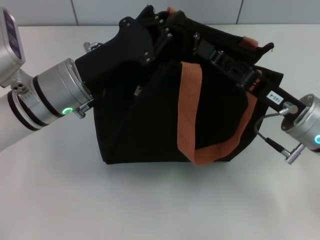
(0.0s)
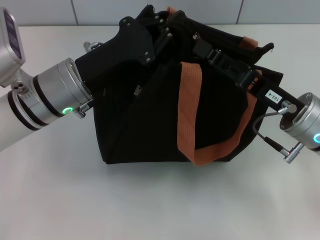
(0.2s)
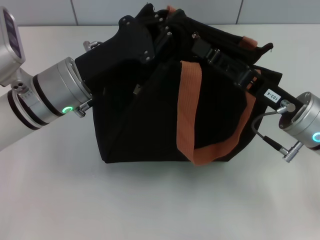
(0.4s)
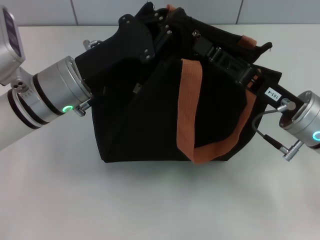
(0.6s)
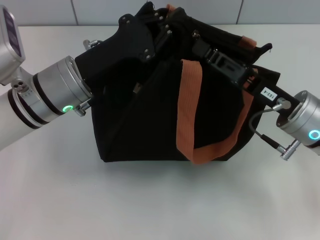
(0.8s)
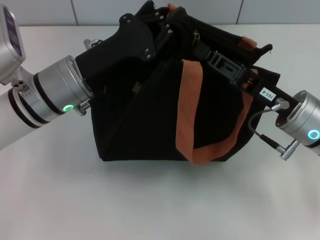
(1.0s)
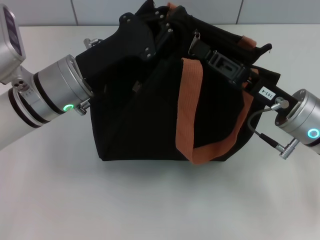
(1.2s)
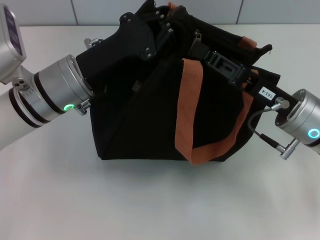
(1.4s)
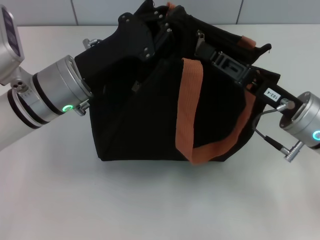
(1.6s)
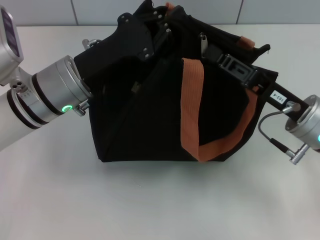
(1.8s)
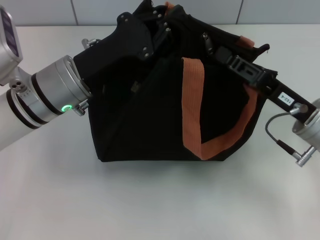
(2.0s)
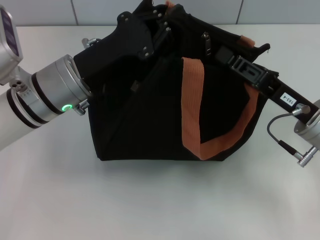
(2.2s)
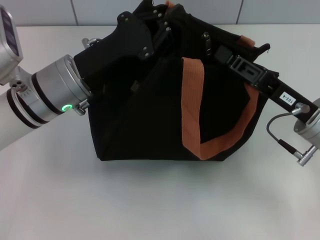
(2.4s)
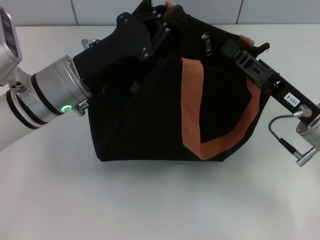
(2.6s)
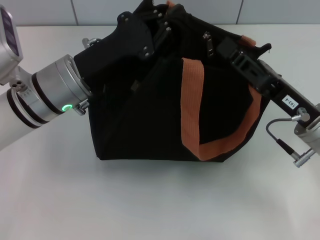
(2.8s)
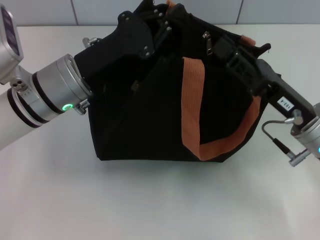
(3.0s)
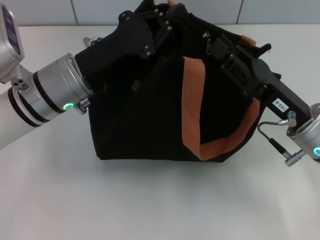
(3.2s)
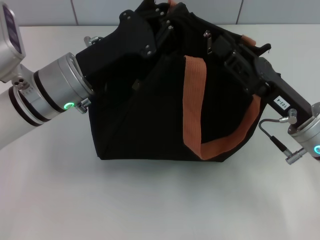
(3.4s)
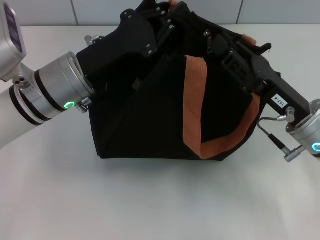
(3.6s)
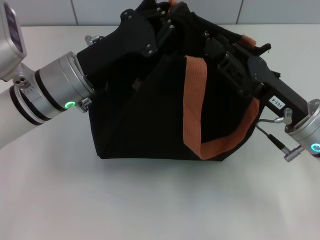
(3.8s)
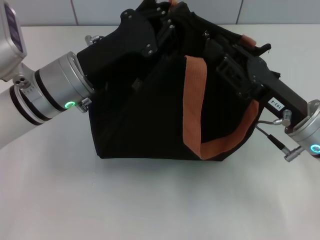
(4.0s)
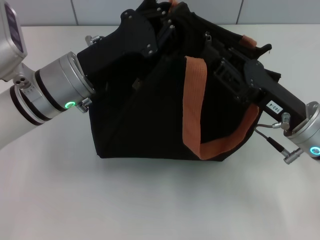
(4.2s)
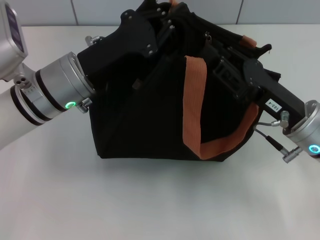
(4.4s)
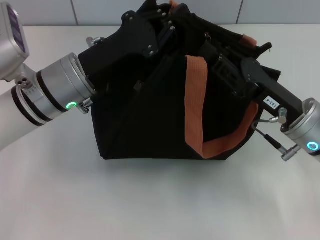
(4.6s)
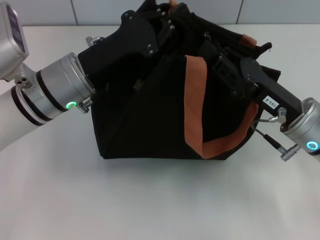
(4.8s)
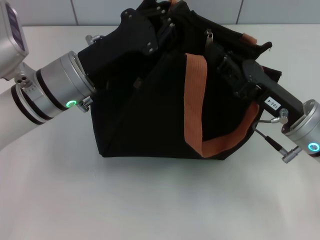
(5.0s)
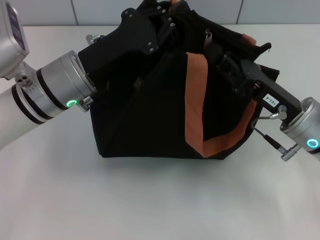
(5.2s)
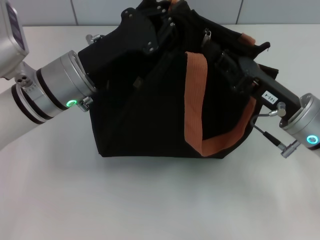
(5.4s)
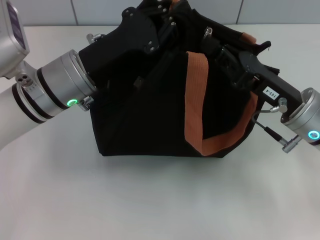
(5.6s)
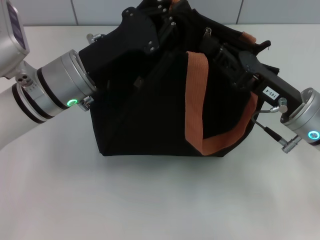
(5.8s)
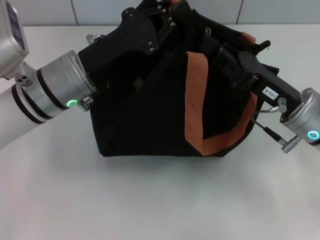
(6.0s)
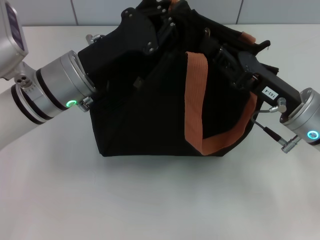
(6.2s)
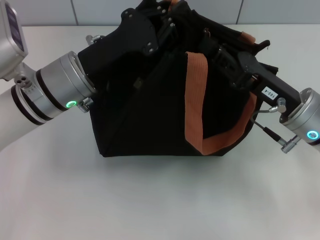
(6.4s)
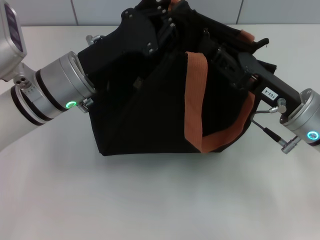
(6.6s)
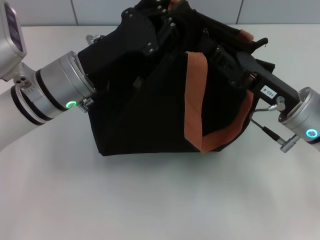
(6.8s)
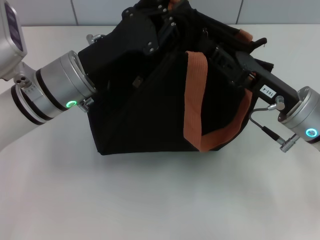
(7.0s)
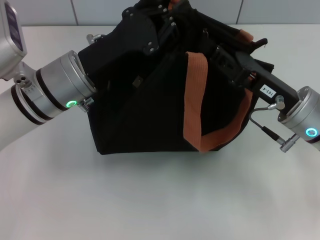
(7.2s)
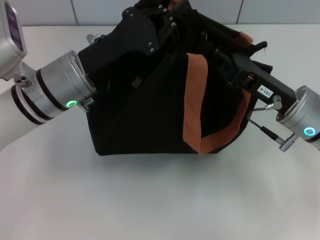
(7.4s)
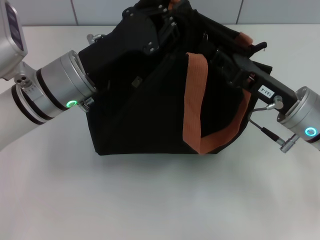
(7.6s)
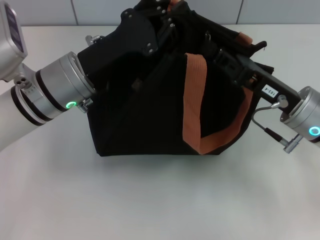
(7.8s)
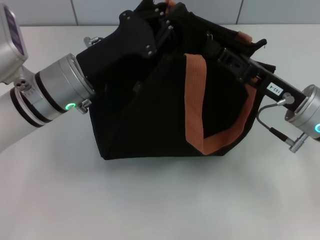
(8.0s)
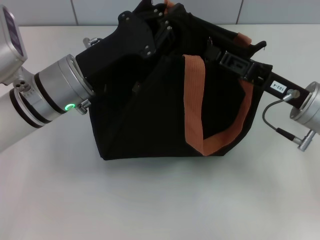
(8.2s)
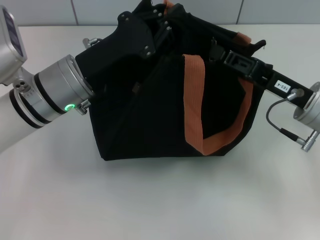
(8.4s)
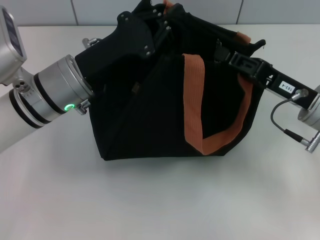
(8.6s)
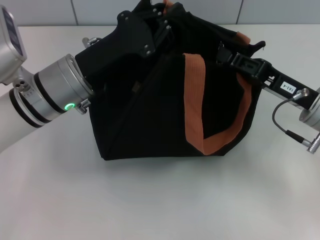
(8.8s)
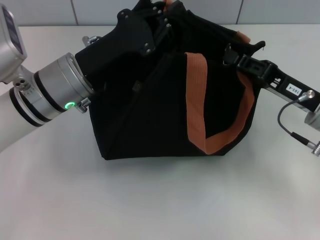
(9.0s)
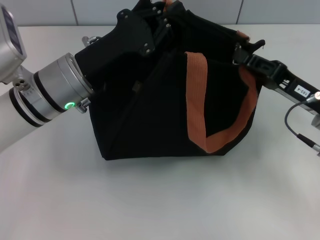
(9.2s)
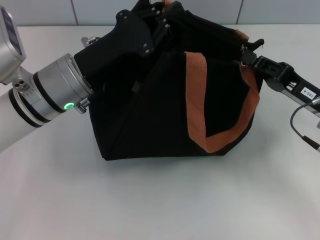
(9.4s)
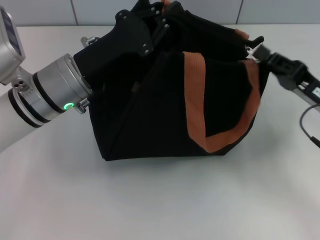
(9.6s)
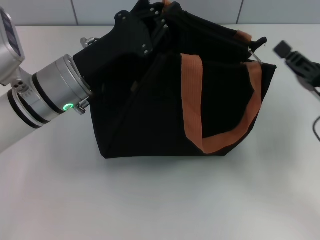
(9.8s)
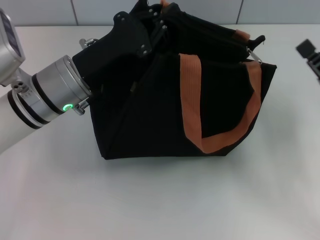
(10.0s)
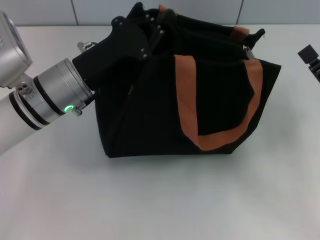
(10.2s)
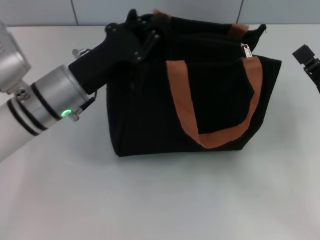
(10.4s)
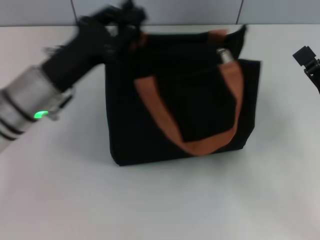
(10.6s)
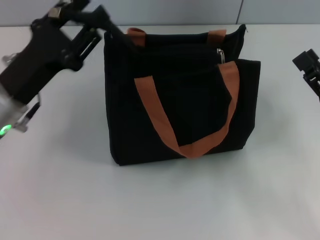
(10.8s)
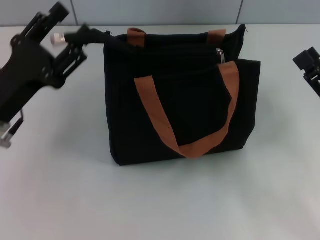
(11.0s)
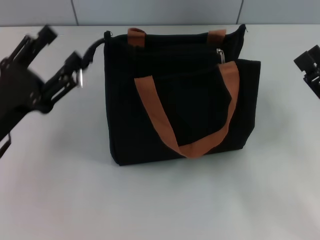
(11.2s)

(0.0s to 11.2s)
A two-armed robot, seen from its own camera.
Step, 0.0s - 10.0s: Pull up the zipper with your right hand.
Step, 10.2s - 11.0s: Grab the zipper with your left hand.
0.0s - 1.6s: The right gripper closes.
1.6s - 3.2s: The right gripper opens.
3.2s - 4.8s: There are only small adjustments of the grippers.
4.8s - 6.4s: Both grippers stay about where they are.
6.4s - 8.0s: The grippers move only a little.
8.0s - 9.6s: The right gripper heads to the right, covering roughly 5 cm.
9.6s - 11.2s: The right gripper shifts roughly 5 cm backward, and opens; the left gripper shifts approximately 15 cm to the left and backward, and opens up.

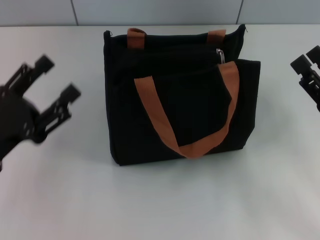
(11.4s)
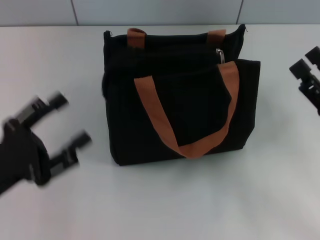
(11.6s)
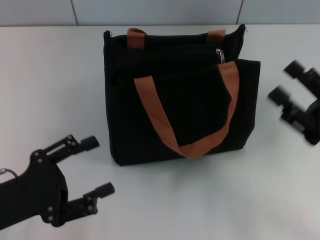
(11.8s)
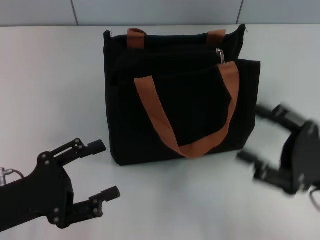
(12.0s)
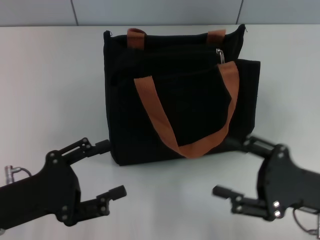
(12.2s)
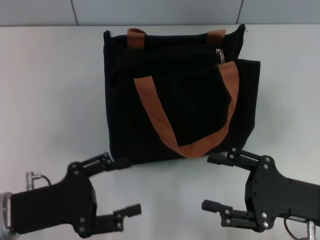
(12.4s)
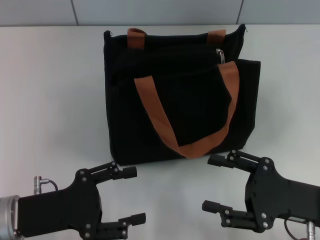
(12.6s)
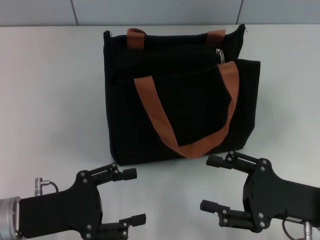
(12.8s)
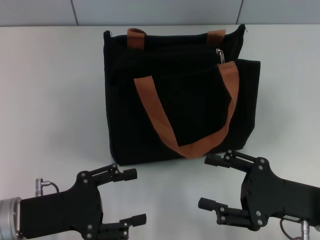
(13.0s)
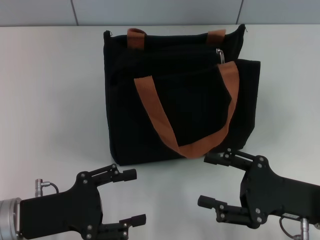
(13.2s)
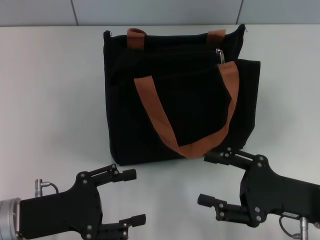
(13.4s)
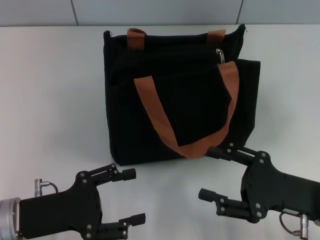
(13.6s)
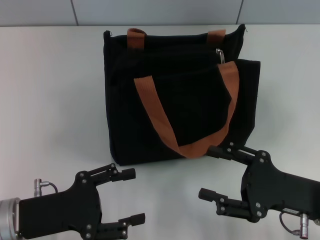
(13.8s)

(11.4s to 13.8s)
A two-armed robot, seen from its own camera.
11.4s - 12.6s: The right gripper shifts by roughly 5 cm.
12.6s - 13.8s: Both grippers stay about where they are.

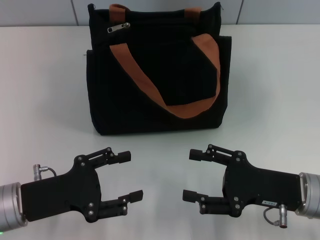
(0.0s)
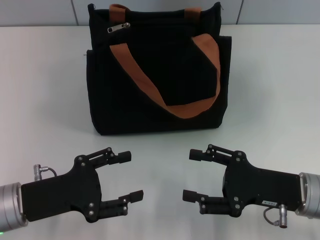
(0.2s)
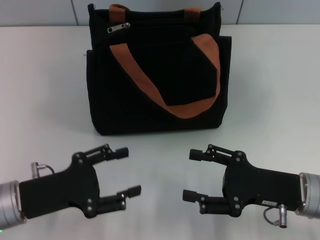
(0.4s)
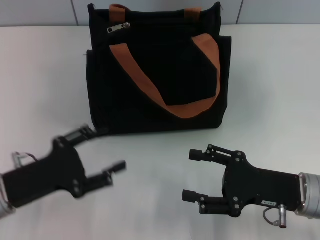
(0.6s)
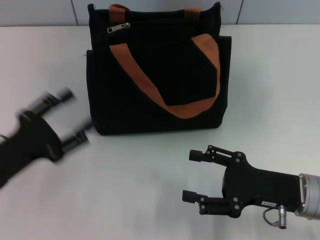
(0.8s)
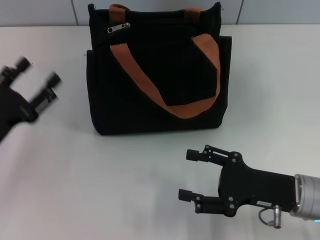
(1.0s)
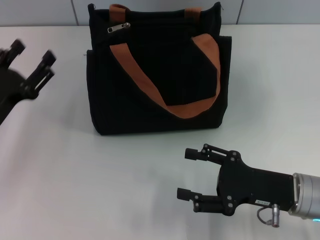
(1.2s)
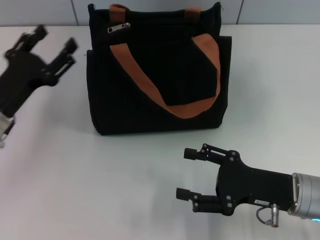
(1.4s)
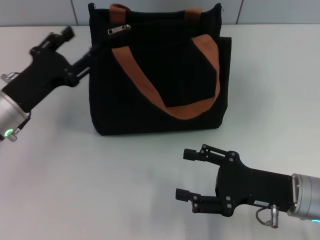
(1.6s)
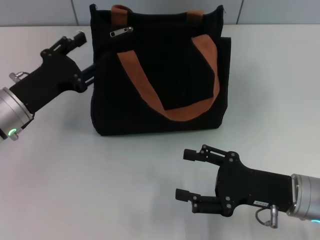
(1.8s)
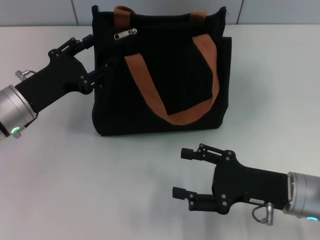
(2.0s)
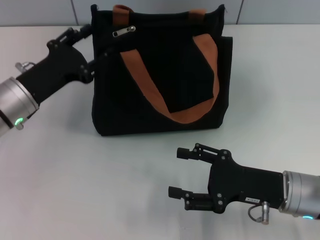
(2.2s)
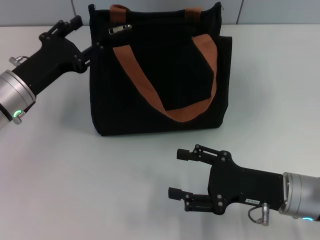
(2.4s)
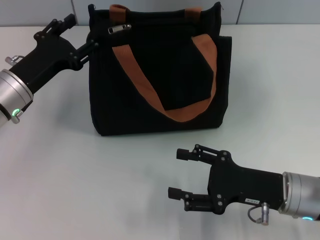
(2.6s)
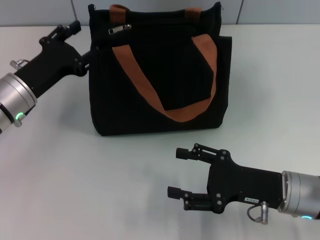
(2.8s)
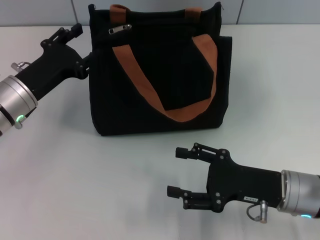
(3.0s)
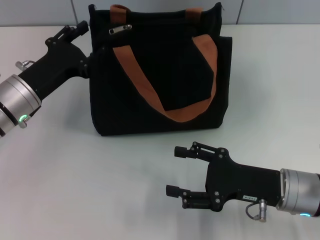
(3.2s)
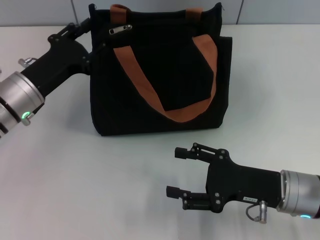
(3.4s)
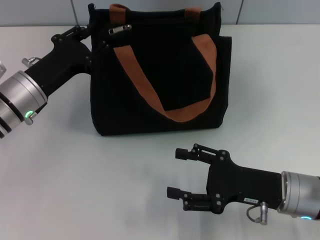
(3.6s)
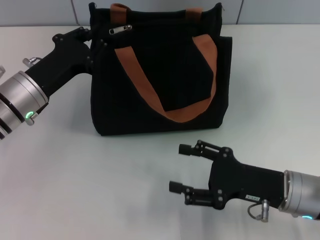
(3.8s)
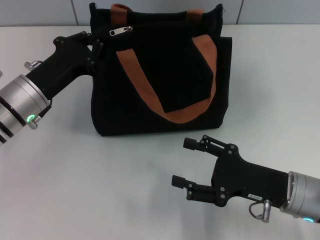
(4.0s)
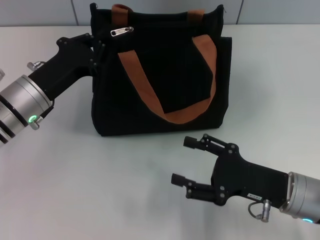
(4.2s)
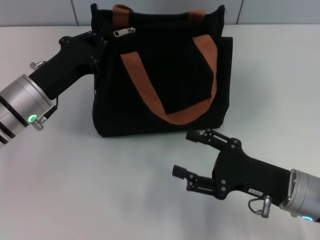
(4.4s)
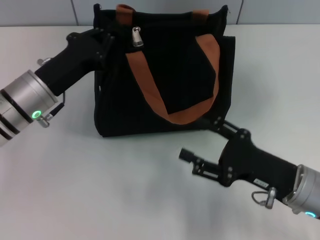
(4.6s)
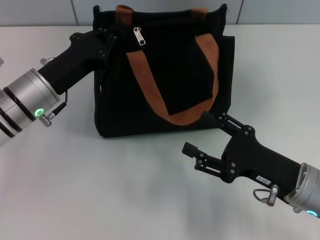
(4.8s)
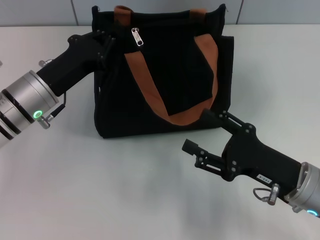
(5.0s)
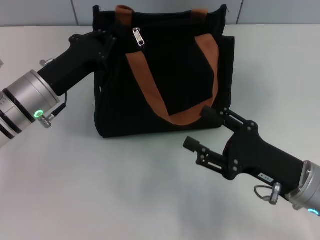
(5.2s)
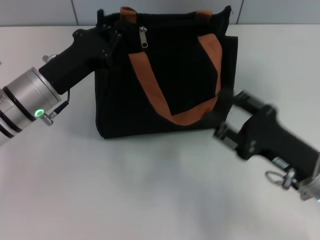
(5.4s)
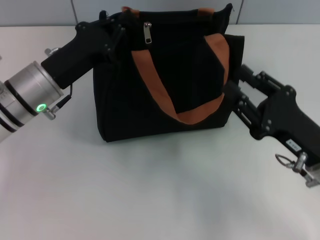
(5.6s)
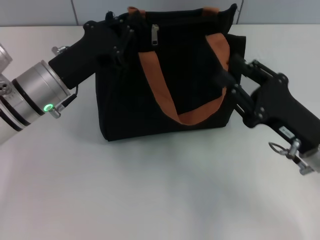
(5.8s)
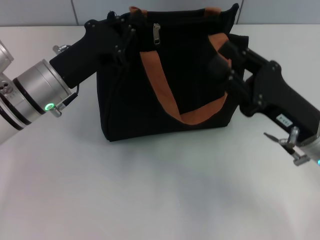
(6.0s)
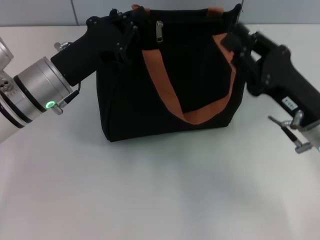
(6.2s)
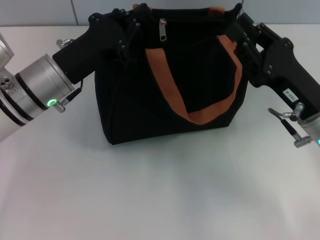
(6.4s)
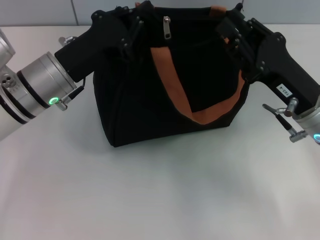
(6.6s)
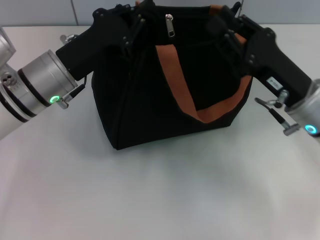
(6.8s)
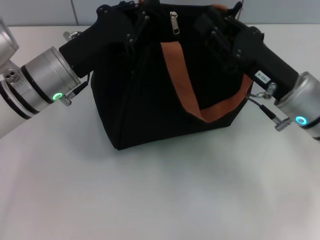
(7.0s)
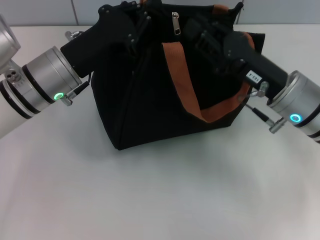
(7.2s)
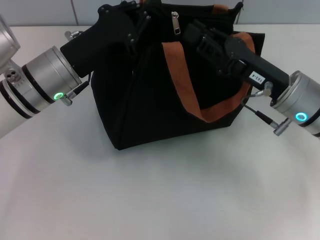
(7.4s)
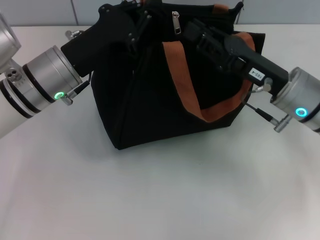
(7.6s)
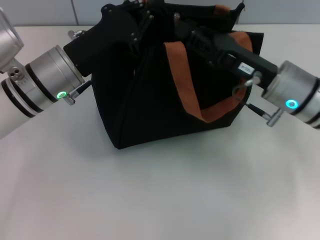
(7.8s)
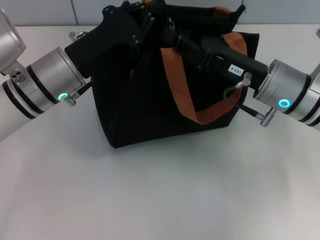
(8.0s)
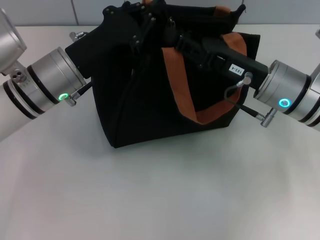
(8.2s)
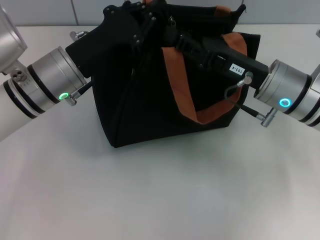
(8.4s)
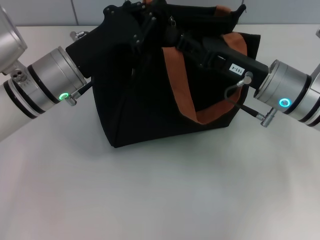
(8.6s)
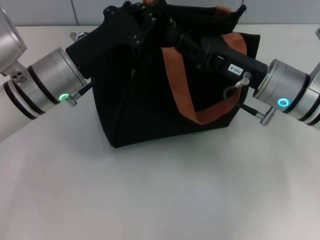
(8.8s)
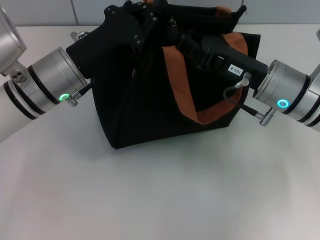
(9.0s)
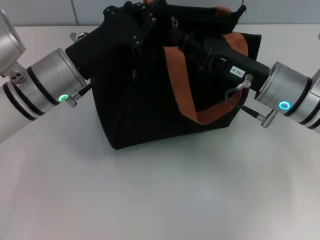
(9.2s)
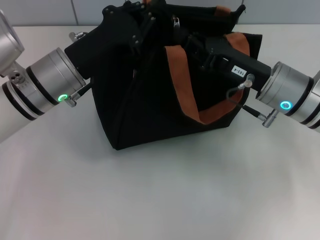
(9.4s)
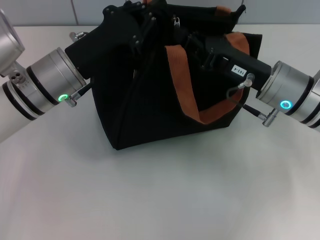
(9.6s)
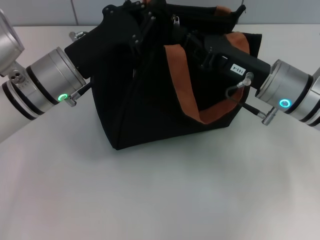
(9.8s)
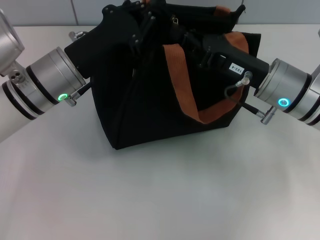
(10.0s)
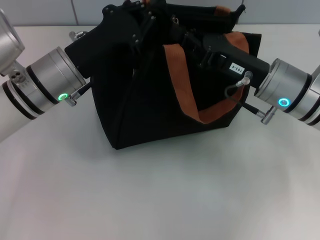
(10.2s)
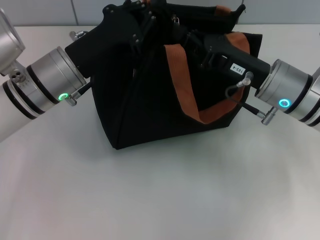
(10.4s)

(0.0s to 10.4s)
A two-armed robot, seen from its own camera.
0.0s - 1.4s: The left gripper goes approximately 10 cm forward.
1.4s - 3.0s: The grippers make only small movements.
3.0s - 4.4s: The left gripper closes.
4.4s - 6.0s: The right gripper changes place by some 5 cm, and closes up.
6.0s - 7.4s: The right gripper travels forward by roughly 5 cm.
7.4s - 9.0s: The grippers make only small movements.
9.0s - 10.4s: Both grippers stay put.
